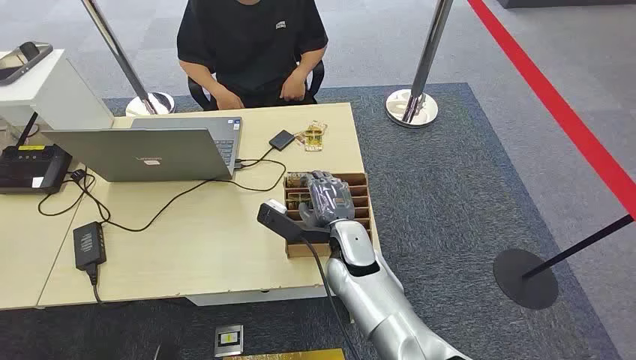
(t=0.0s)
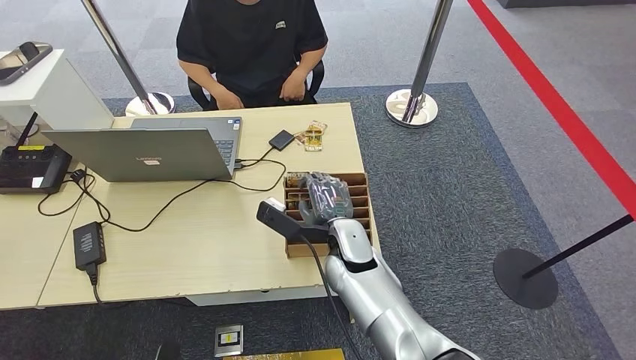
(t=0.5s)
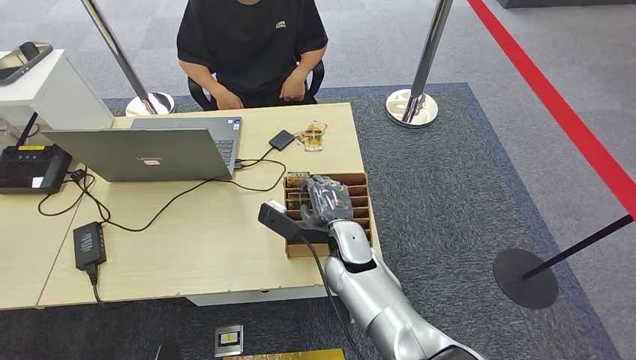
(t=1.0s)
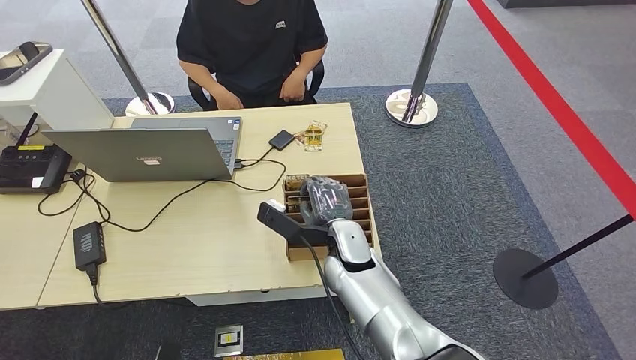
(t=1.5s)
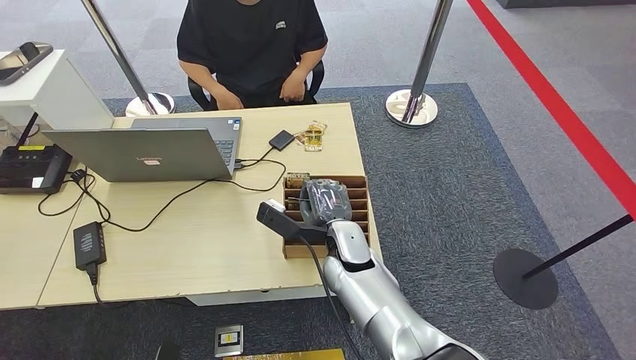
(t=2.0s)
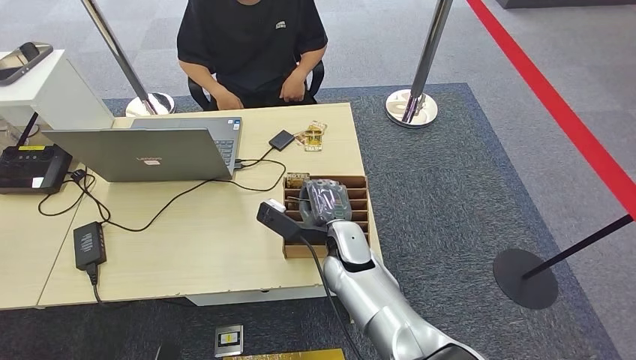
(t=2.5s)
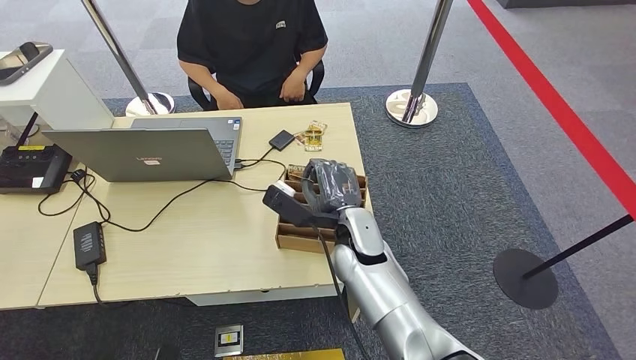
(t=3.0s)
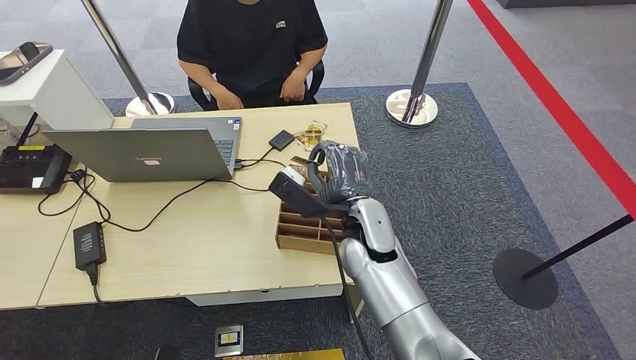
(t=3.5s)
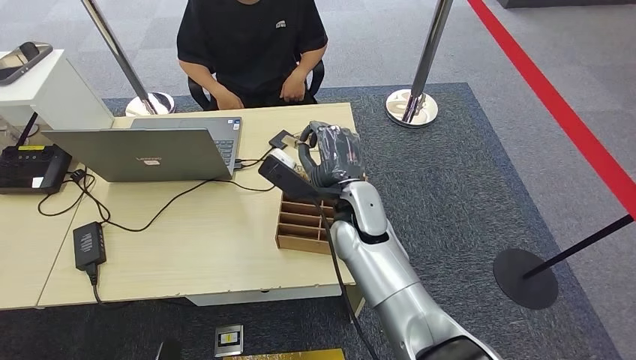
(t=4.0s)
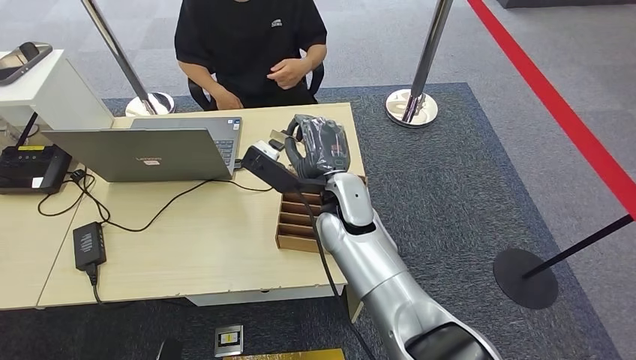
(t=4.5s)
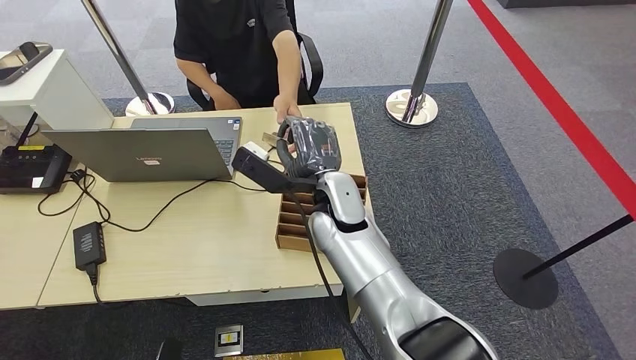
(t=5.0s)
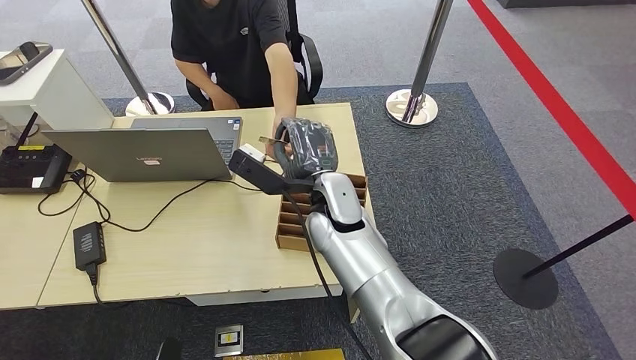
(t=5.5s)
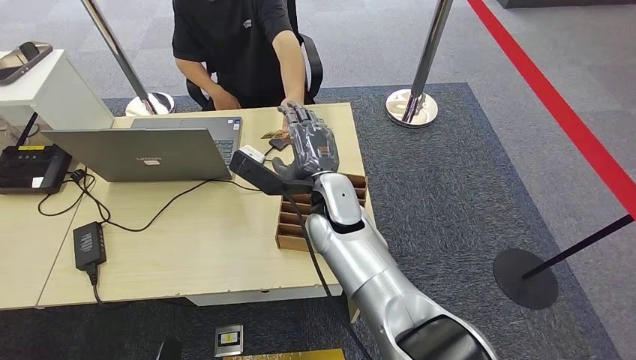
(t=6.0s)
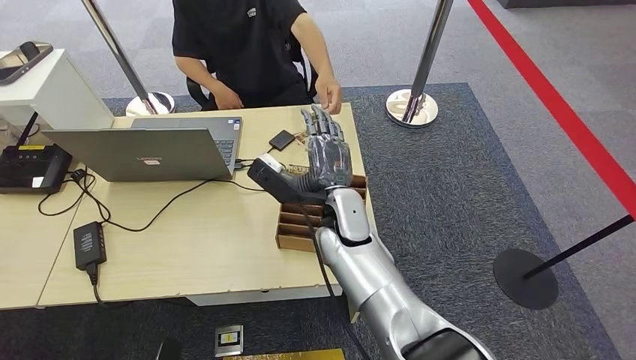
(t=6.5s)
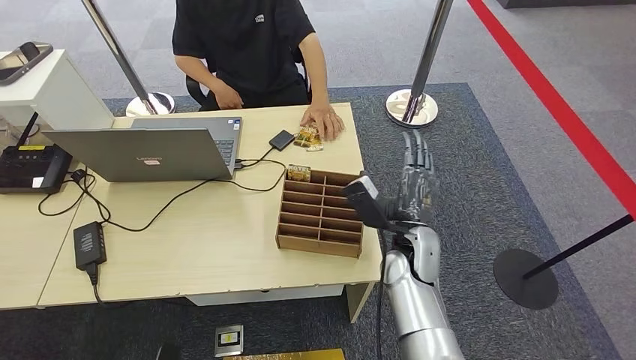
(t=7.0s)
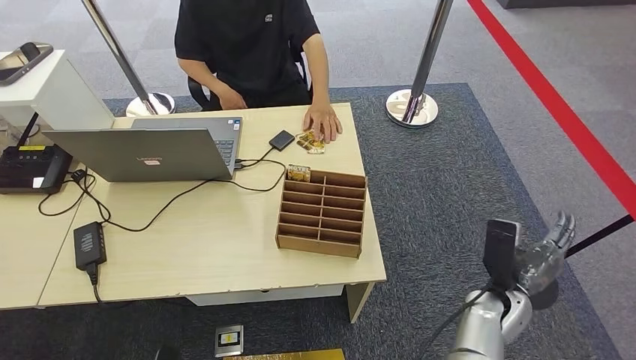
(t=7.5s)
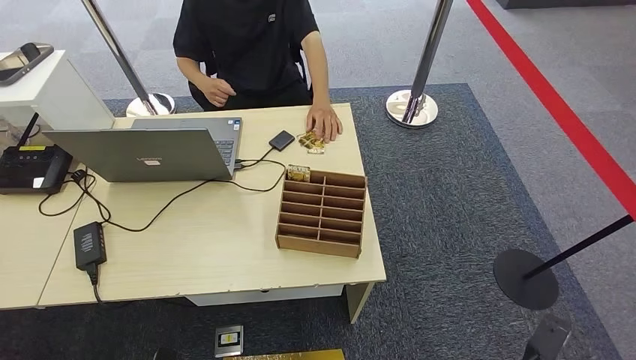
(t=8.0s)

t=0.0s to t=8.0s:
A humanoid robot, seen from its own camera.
Step, t=0.0s to t=3.5s: Pick up the room card from the card holder.
Step, t=4.0s to t=8.0s: Hand the room card to the target.
t=2.0s to t=4.0s: The right hand travels upward by some 10 cm.
t=4.0s to t=6.0s: The hands make only small movements.
t=6.0s to t=8.0s: The right hand is displaced to the right, downward and backward by roughly 50 cm.

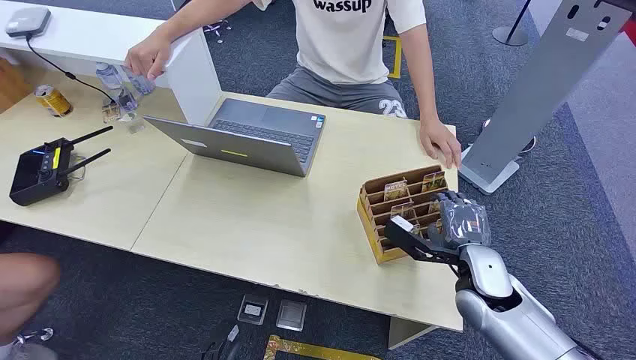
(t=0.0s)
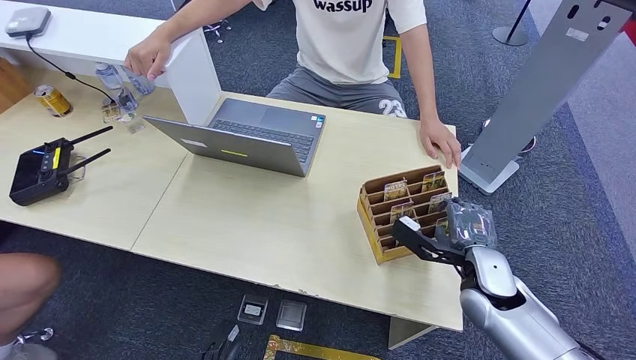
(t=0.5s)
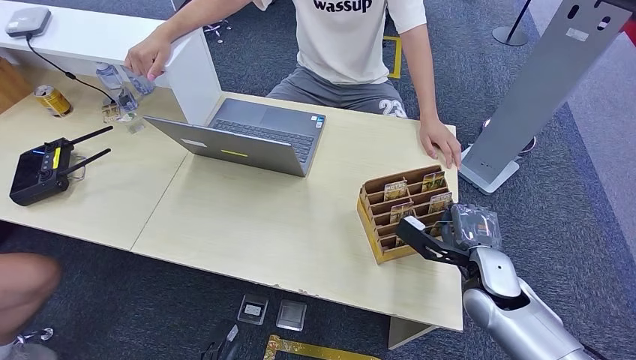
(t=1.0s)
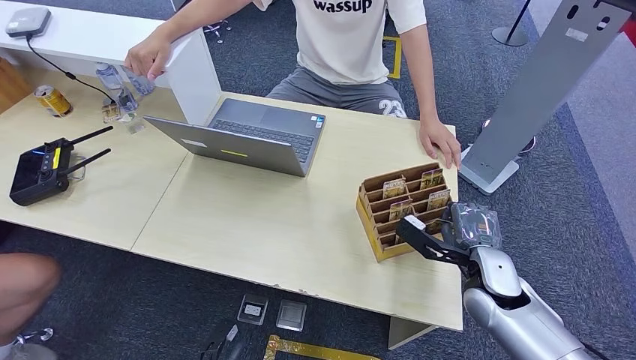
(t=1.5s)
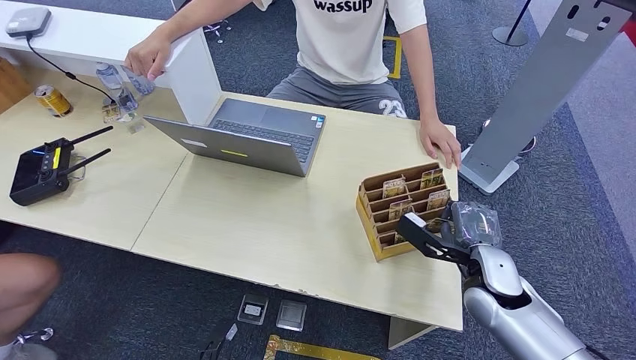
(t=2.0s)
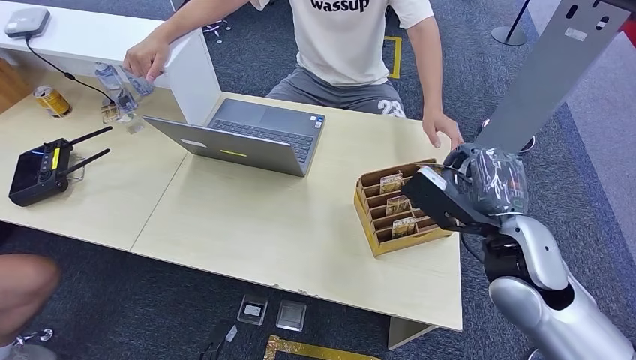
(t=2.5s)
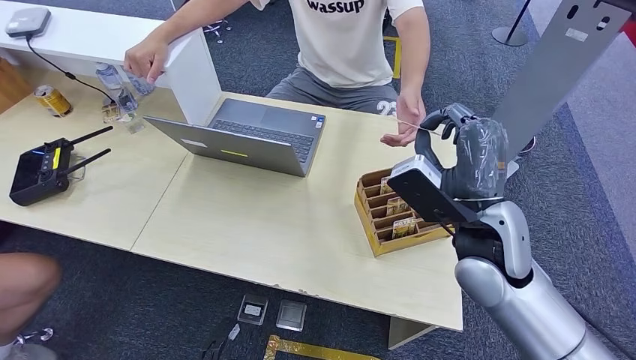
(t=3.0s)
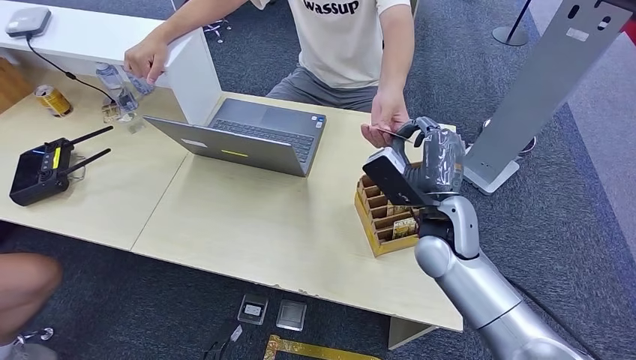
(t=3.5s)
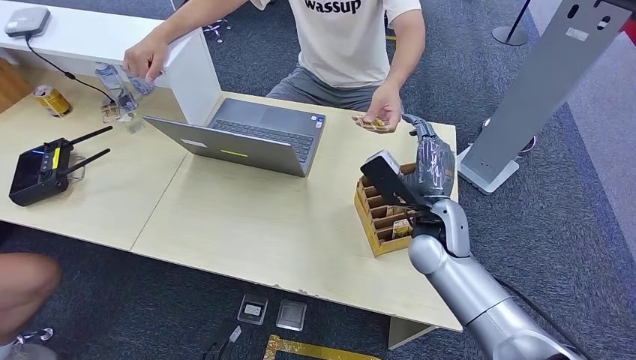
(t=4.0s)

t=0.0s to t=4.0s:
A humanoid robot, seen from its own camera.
Step, t=0.0s to t=2.0s: Pick up the room card from the card holder.
Step, t=3.0s to t=4.0s: Hand the room card to the target.
t=2.0s to t=4.0s: The right hand moves to the left, about 15 cm, and reaches about 15 cm upward, then returns.

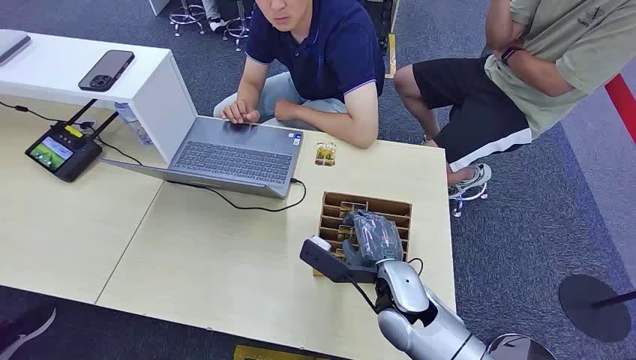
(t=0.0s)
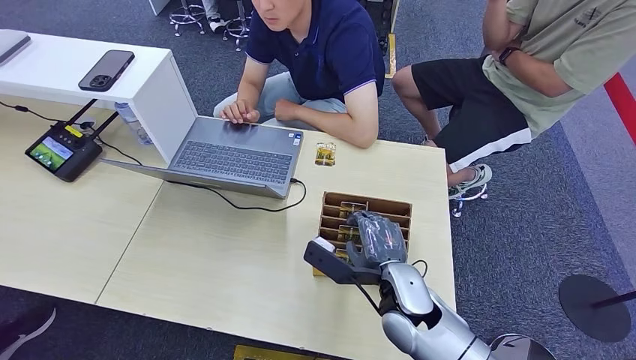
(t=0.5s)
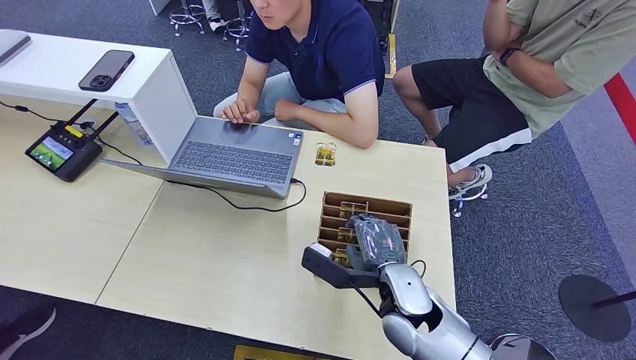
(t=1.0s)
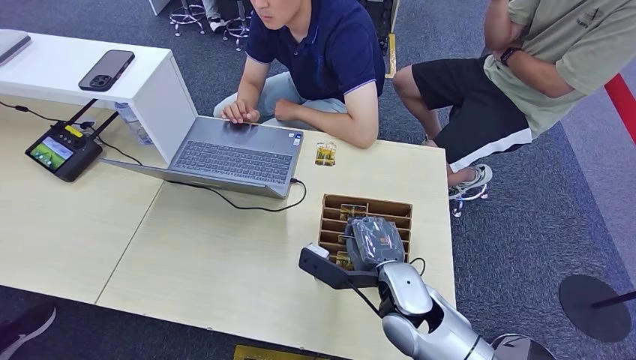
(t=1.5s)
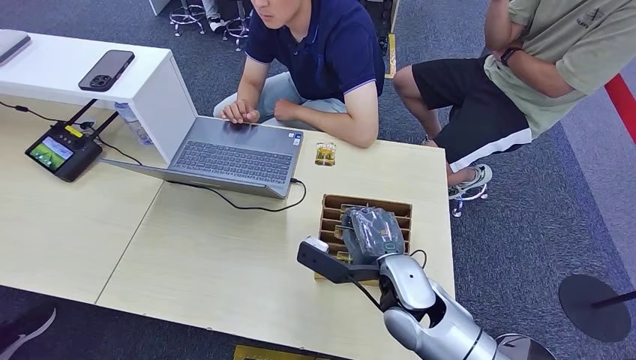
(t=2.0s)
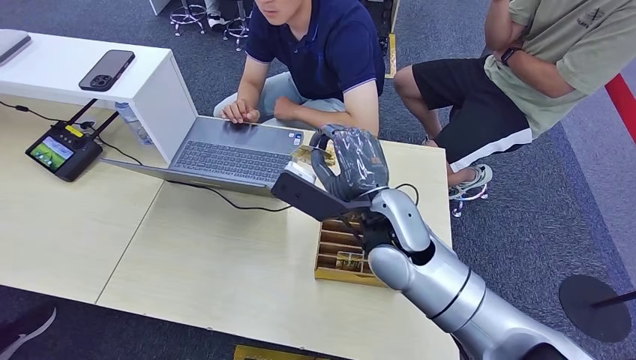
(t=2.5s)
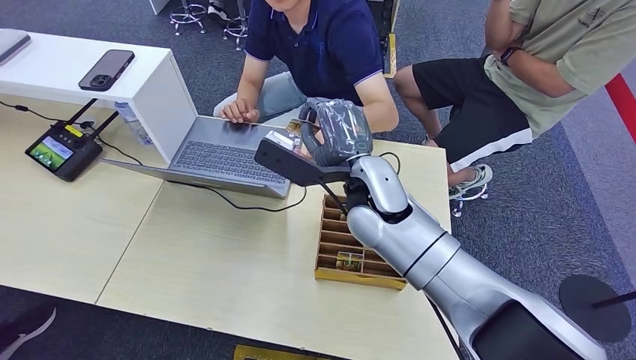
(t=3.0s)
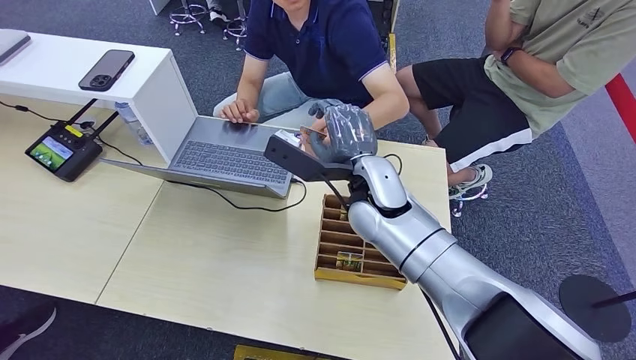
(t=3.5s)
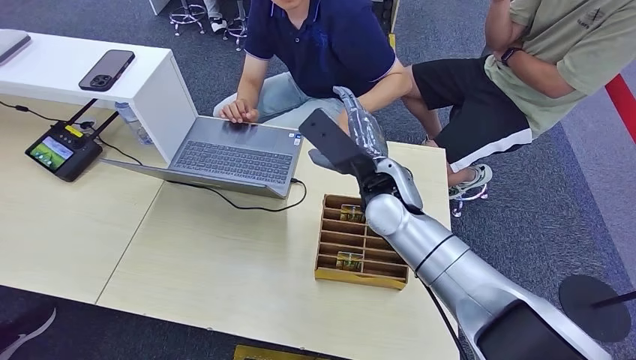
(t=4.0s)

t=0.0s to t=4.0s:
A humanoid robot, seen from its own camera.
Step, t=0.0s to t=1.0s: Pick up the room card from the card holder.
Step, t=2.0s to t=4.0s: Hand the room card to the target.
t=2.0s to t=4.0s: The right hand heads forward and upward, covering about 15 cm.
